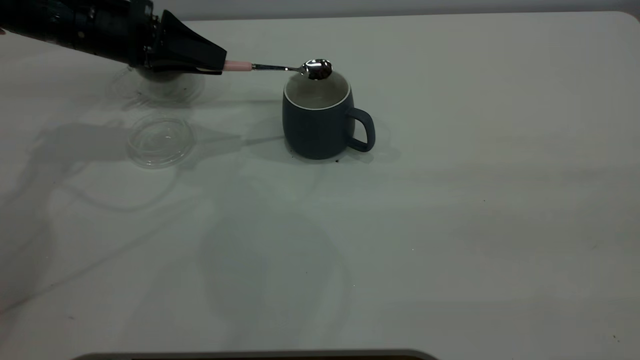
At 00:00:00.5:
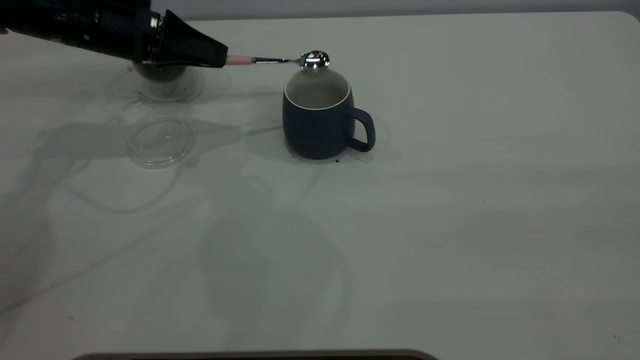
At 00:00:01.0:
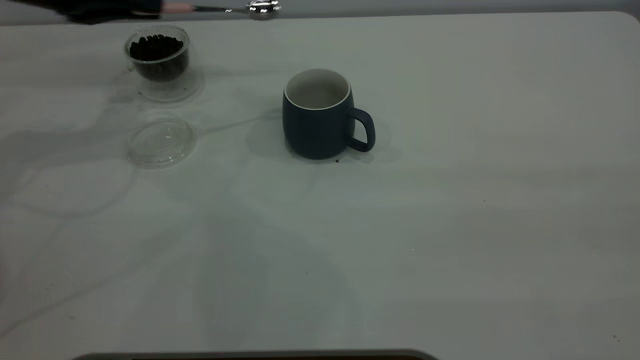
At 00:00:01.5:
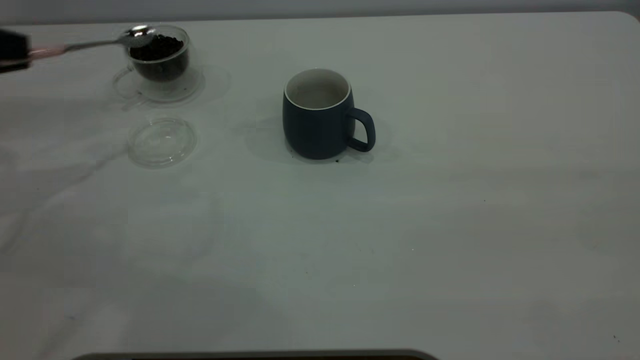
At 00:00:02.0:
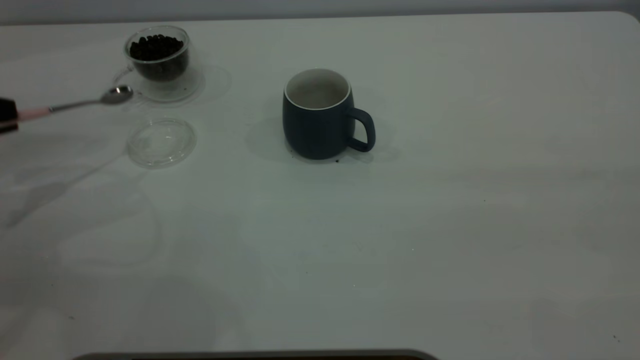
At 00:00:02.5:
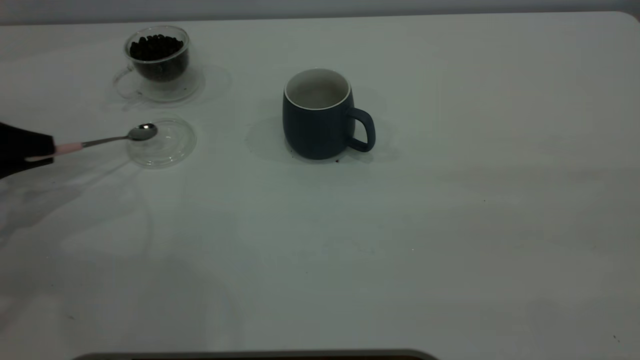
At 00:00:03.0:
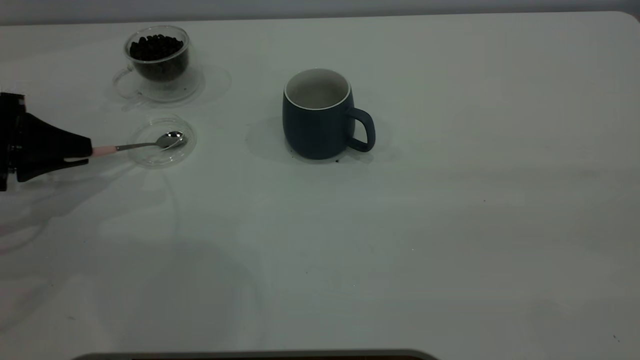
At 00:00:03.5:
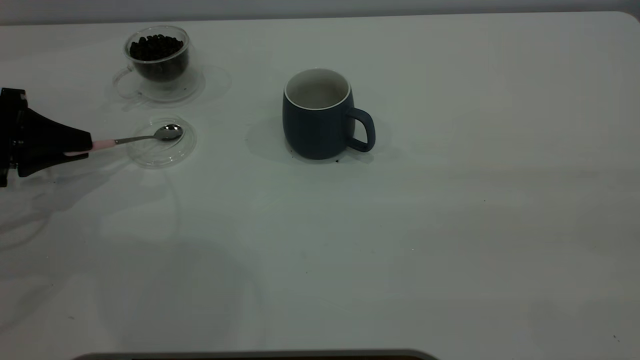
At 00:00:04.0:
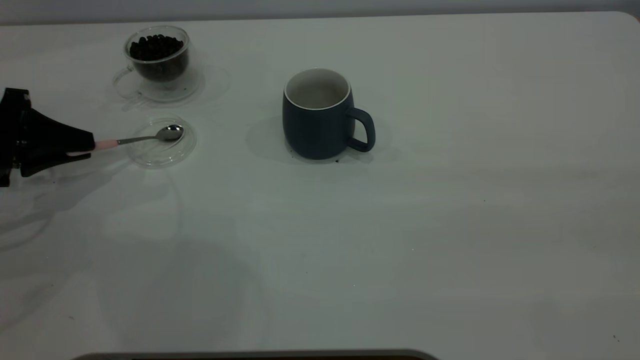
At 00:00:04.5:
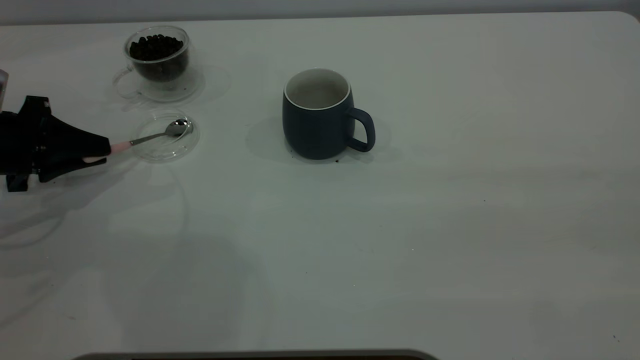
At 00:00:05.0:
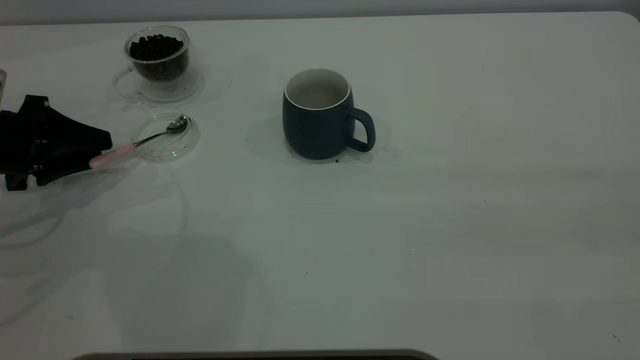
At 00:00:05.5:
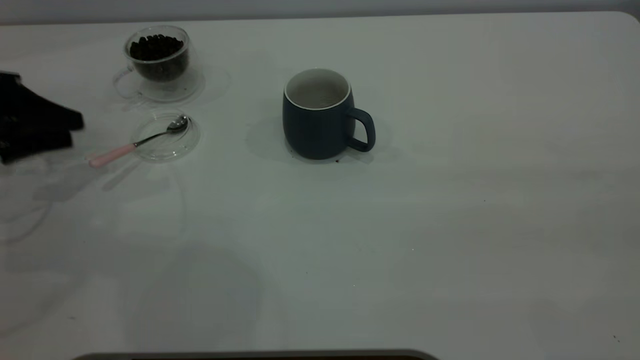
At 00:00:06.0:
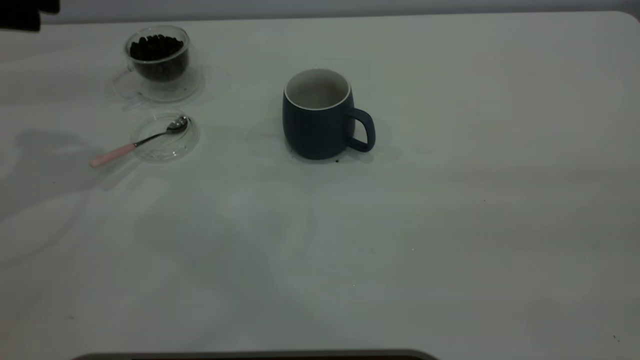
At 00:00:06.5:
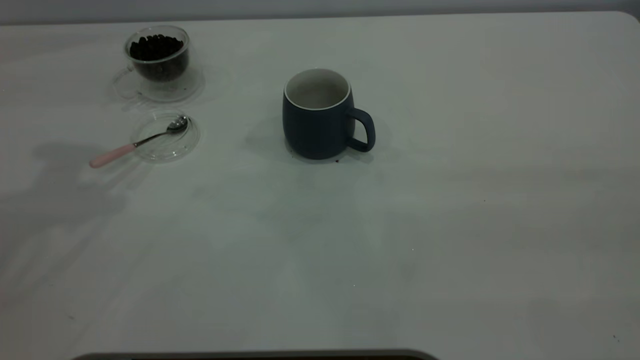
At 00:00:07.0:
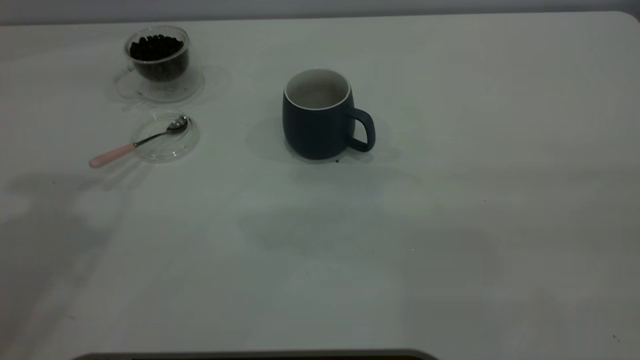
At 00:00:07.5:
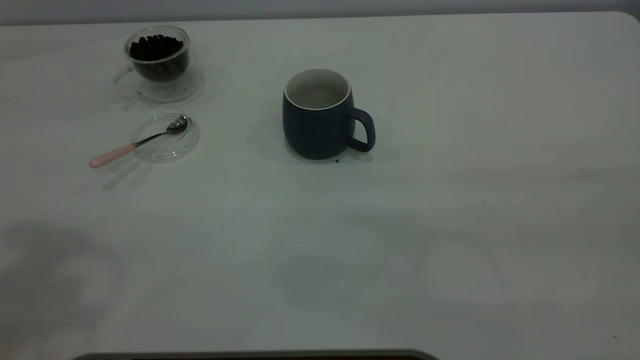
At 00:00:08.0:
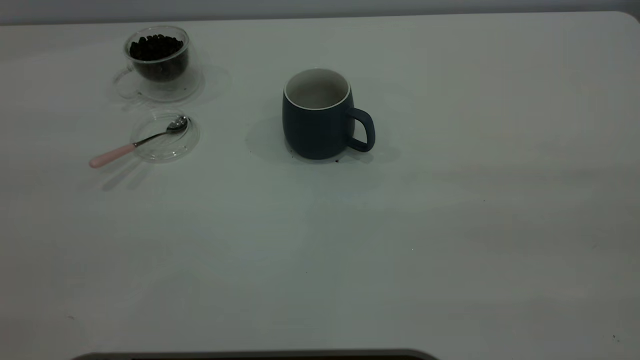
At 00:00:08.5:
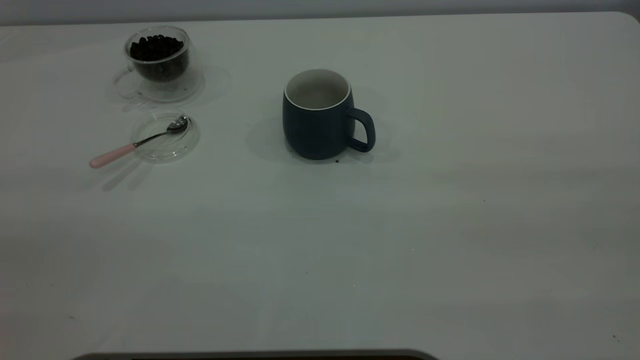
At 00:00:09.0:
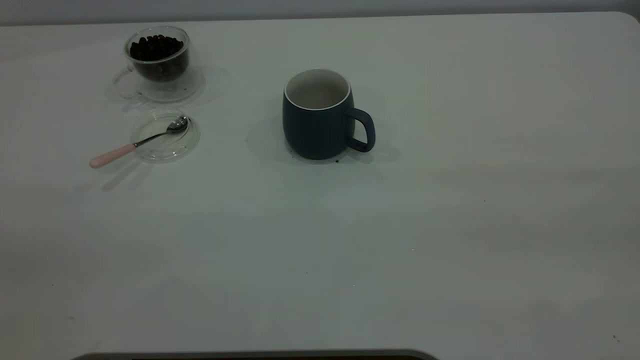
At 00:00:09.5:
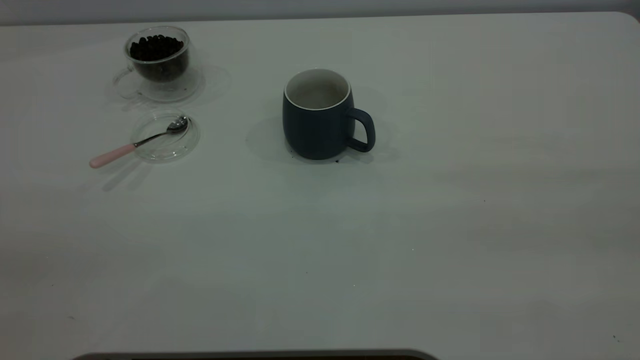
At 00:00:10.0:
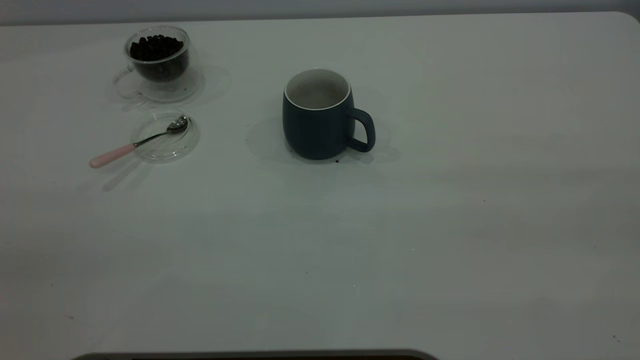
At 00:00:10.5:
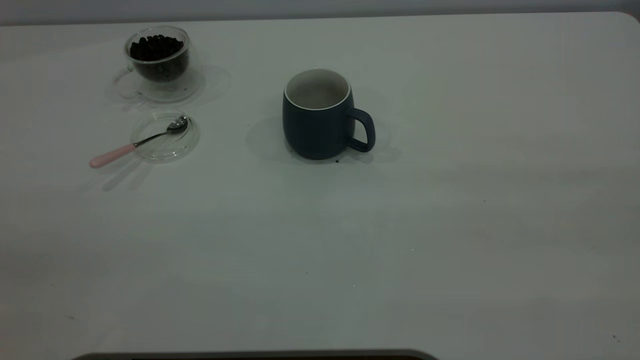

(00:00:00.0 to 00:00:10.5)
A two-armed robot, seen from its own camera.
Task of the whole recording: the right gripper place the grey cup in the center of the table, the left gripper take the pink spoon from the cup lid and scoop out the coffee beans from the coffee cup and put them into the grey cup, the left gripper put the spoon back into the cup lid.
Step, 00:00:01.0 - 00:00:05.5: Place the spoon back in its original place.
00:00:00.0 - 00:00:02.0: The left gripper shifts roughly 25 cm to the left and backward.
00:00:02.0 - 00:00:04.0: The left gripper shifts by about 5 cm.
00:00:04.0 - 00:00:06.5: The left gripper travels upward by some 30 cm, and opens up.
